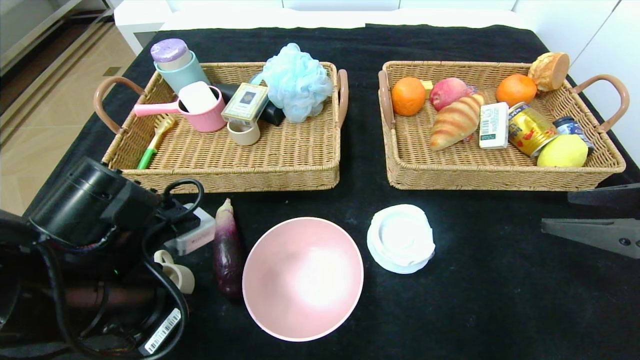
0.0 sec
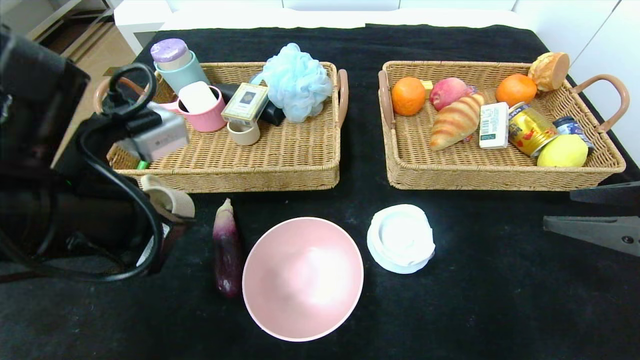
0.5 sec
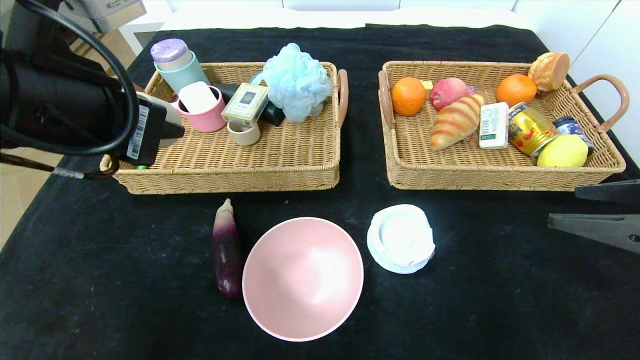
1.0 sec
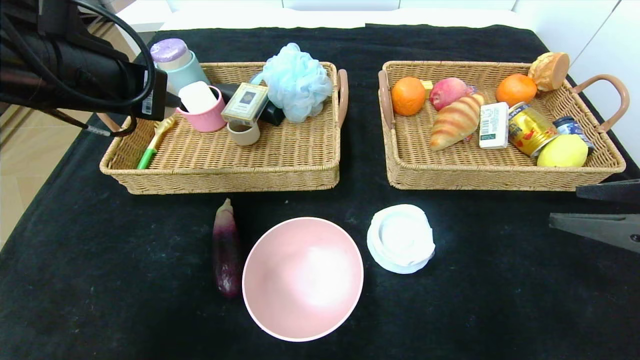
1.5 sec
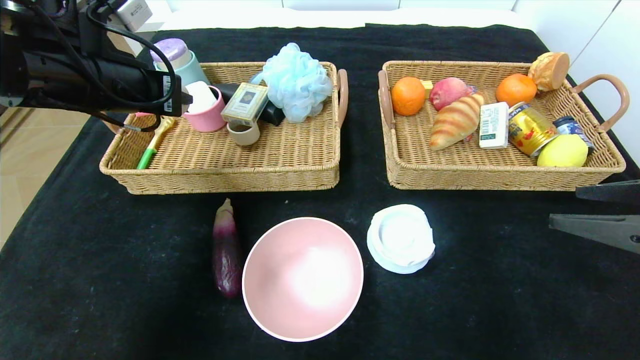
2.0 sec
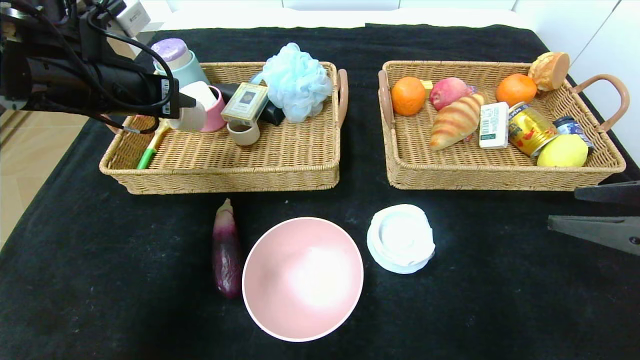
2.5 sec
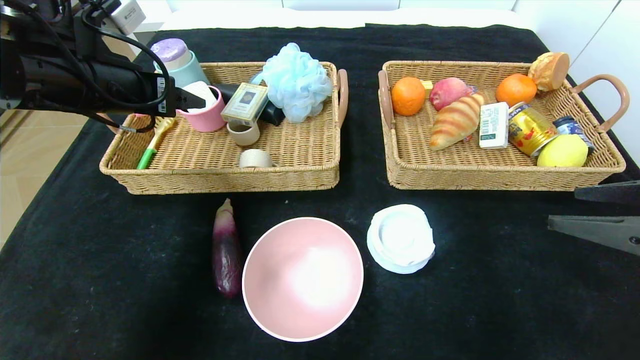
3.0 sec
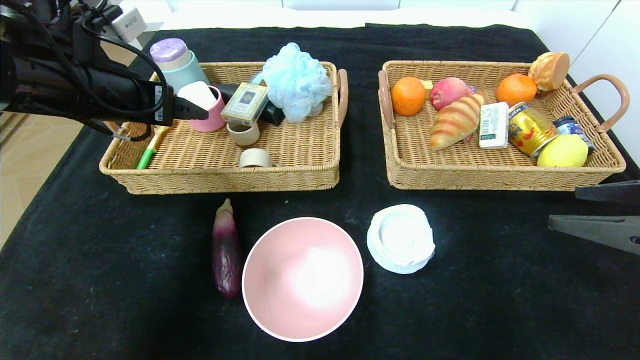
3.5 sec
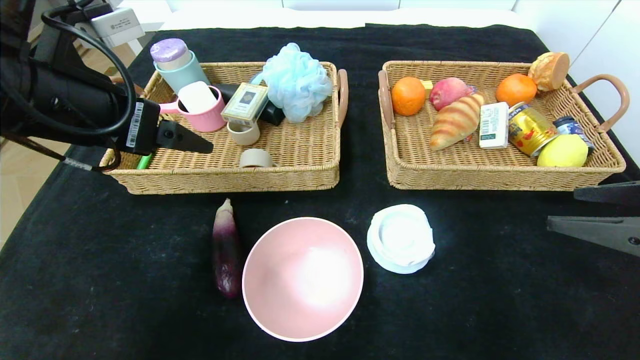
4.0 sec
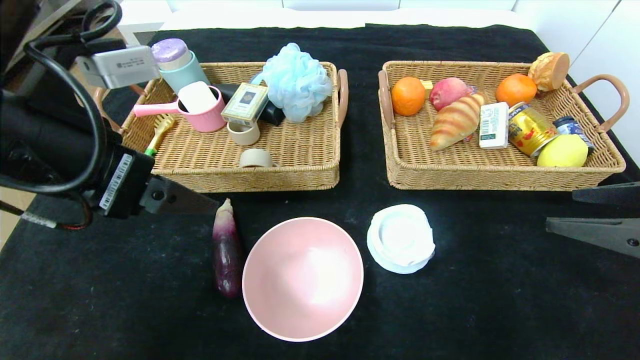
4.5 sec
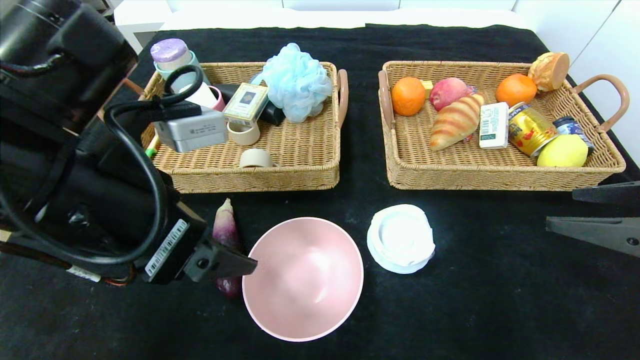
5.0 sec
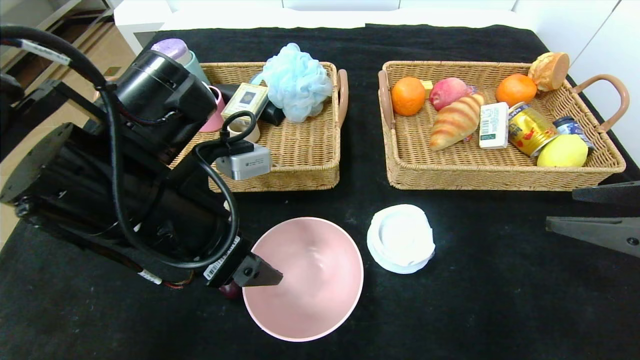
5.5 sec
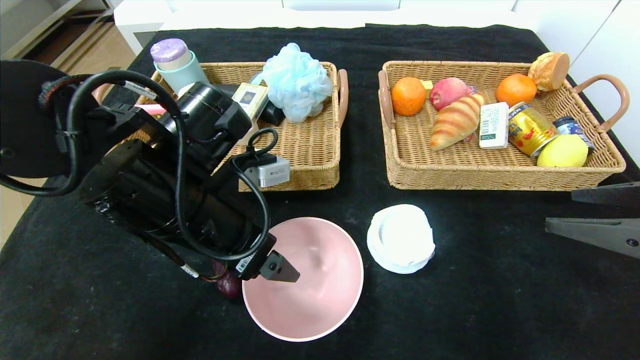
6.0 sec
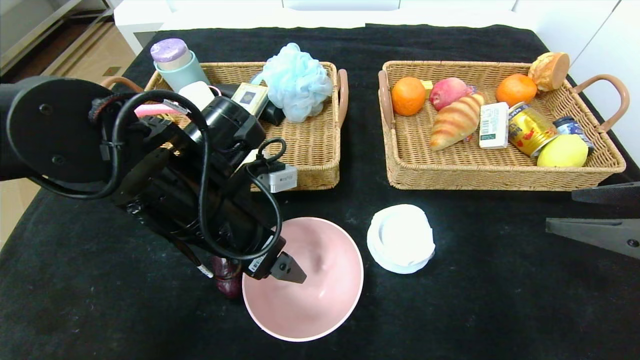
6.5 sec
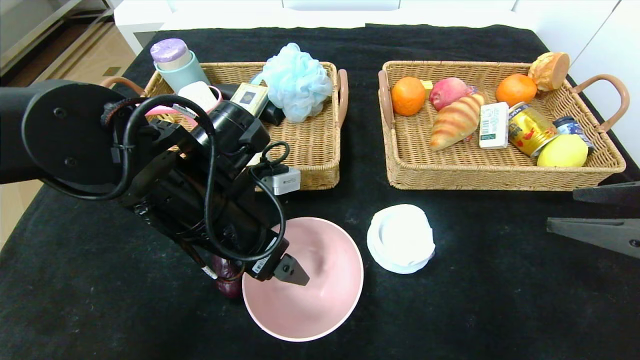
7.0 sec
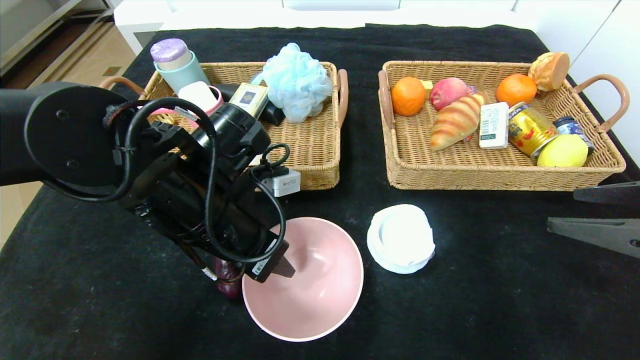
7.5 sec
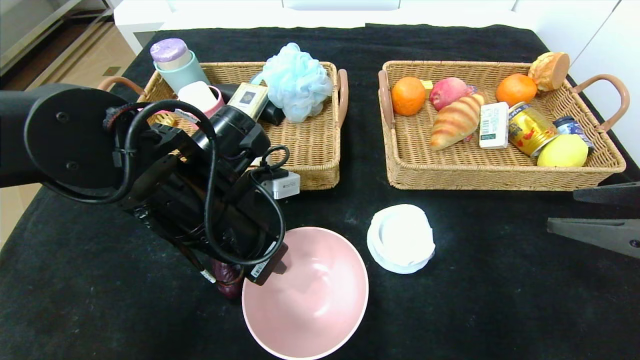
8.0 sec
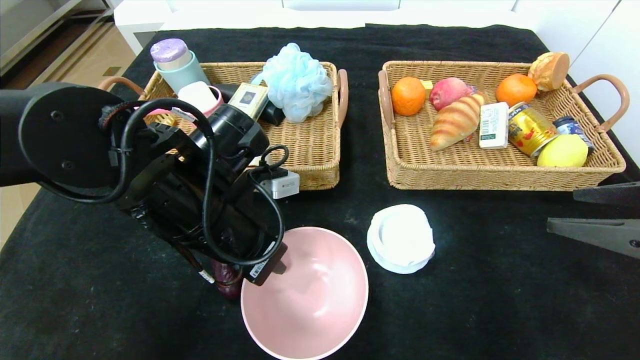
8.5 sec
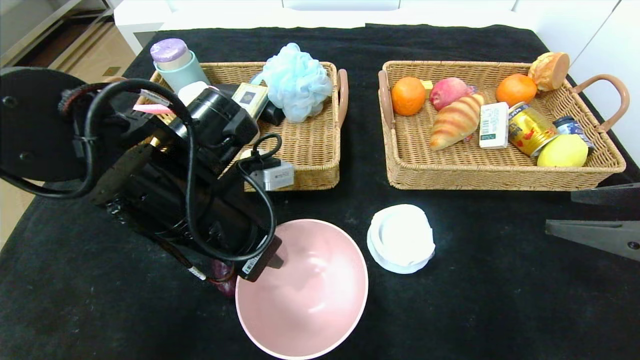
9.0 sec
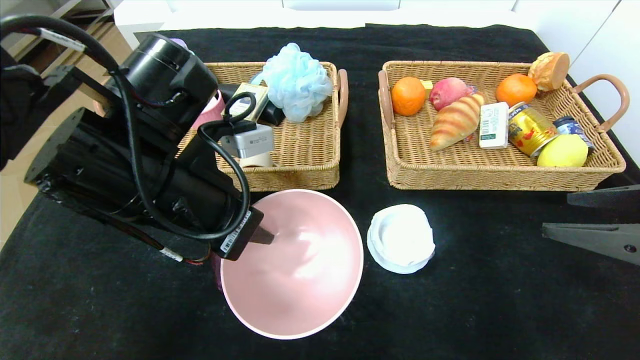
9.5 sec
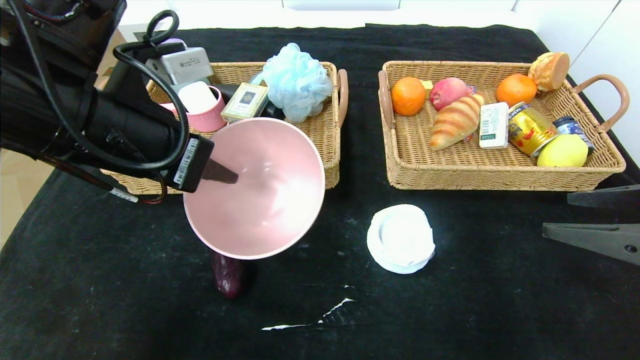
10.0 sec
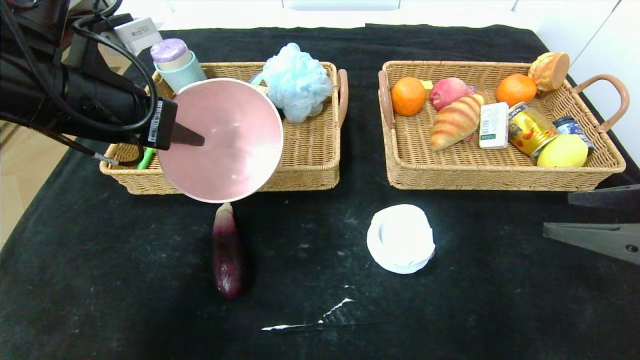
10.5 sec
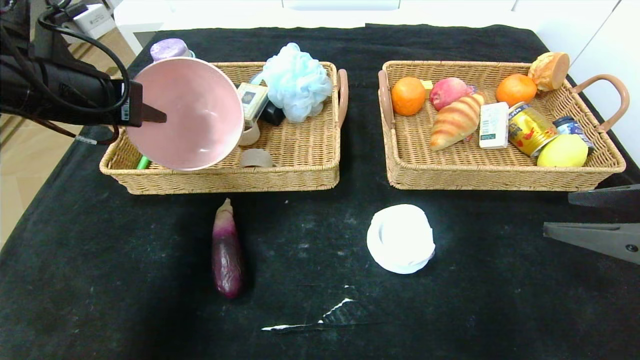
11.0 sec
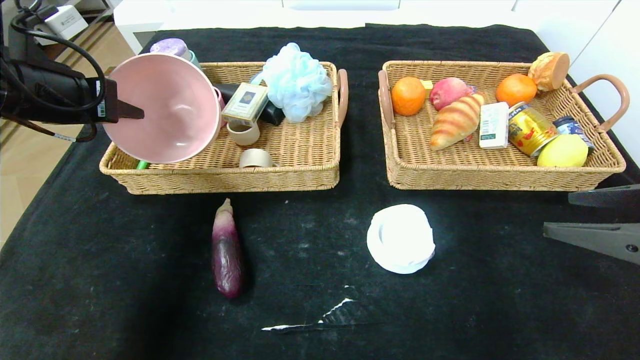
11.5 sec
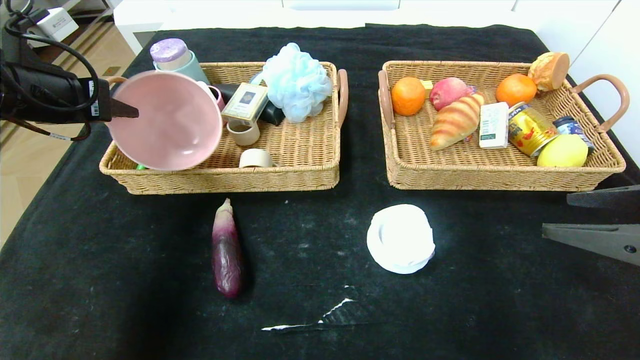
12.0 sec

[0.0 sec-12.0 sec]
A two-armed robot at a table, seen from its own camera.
Step, 0.0 sec to 4.5 sec: Pick up the tea cup and put it in the left basket.
0.0 sec to 2.0 sec: The left gripper heads forward, upward and to the left, covering about 20 cm.
2.0 sec to 4.0 sec: The left gripper is displaced backward by approximately 10 cm, and opens its fingers.
4.0 sec to 6.0 sec: The left gripper moves downward and to the right, about 15 cm.
6.0 sec to 8.0 sec: The left gripper closes its fingers.
8.0 sec to 10.0 sec: The left gripper travels upward and to the left by roughly 10 cm.
10.0 sec to 12.0 sec: The left gripper moves to the left and forward, approximately 15 cm.

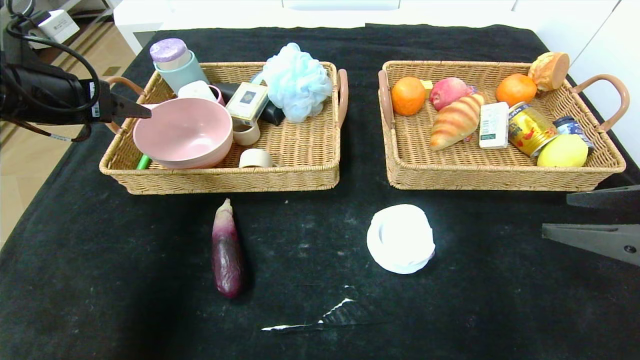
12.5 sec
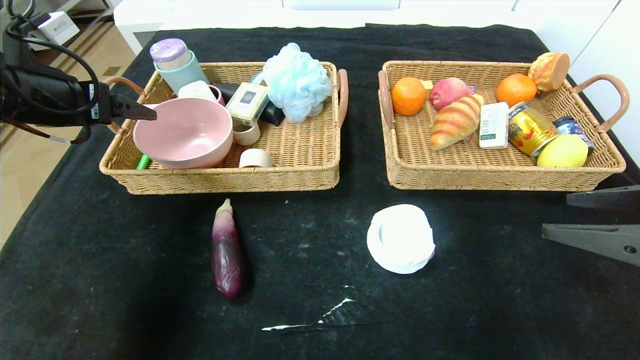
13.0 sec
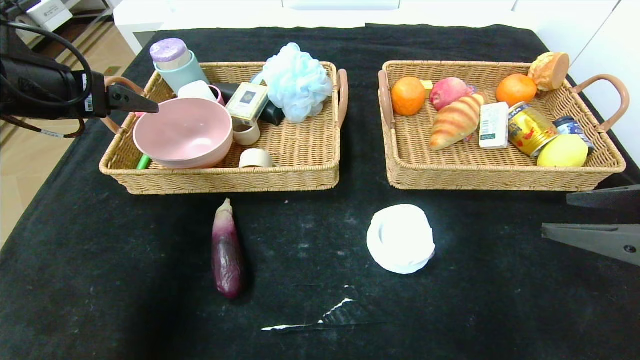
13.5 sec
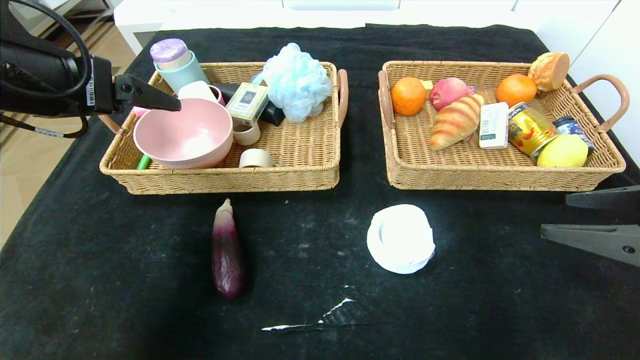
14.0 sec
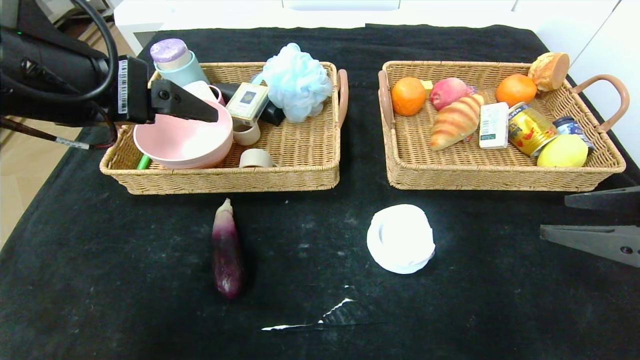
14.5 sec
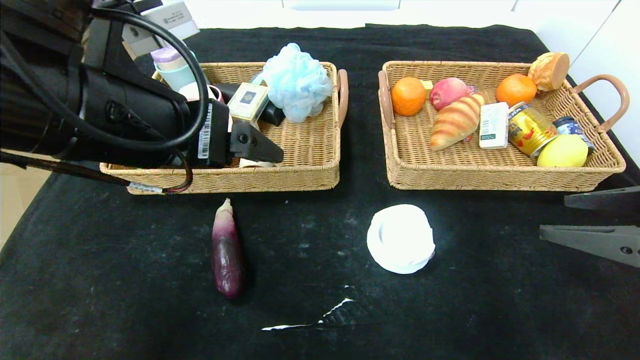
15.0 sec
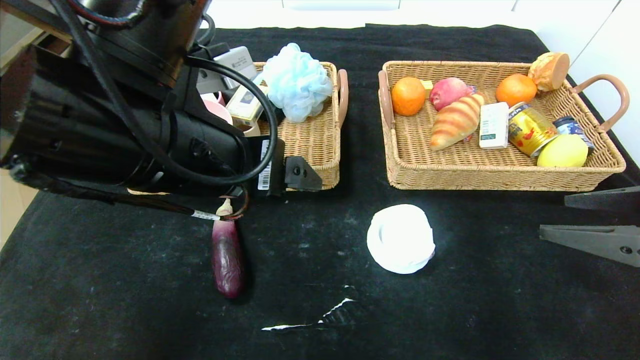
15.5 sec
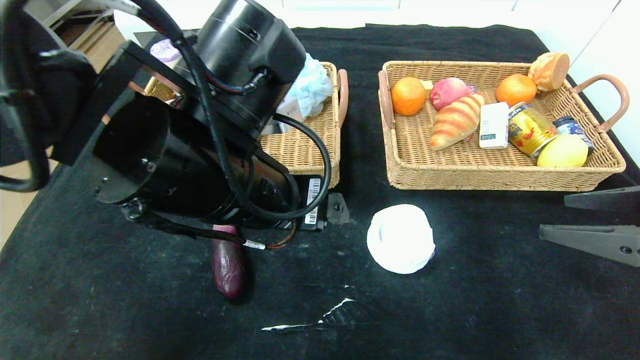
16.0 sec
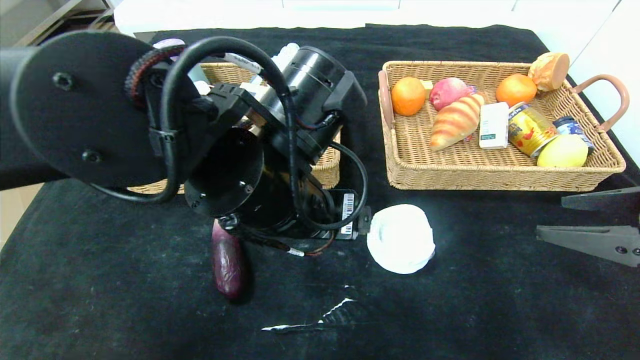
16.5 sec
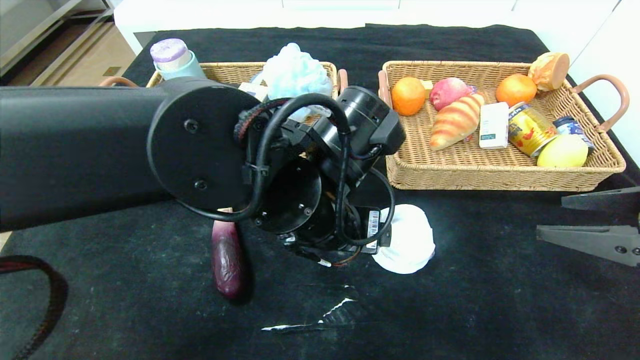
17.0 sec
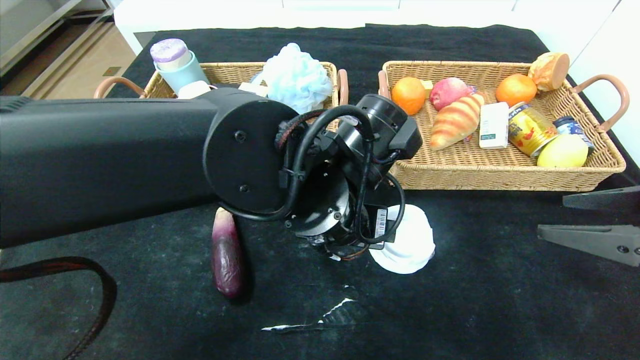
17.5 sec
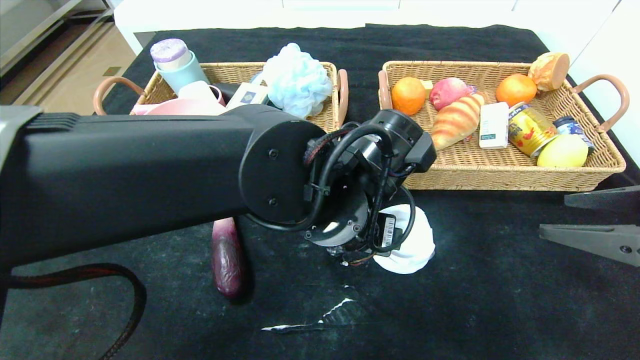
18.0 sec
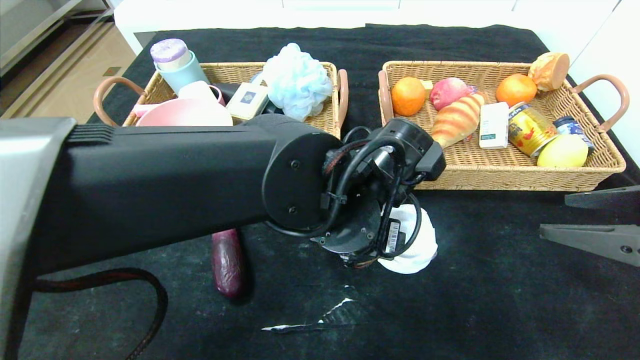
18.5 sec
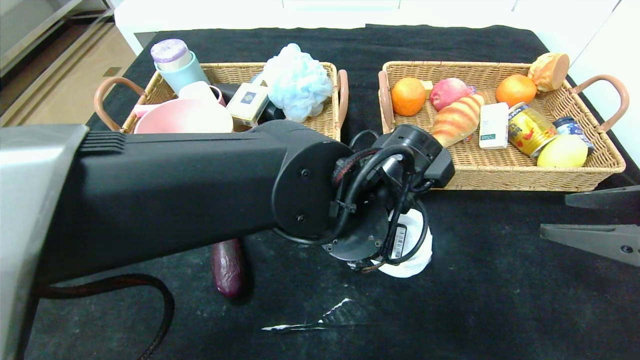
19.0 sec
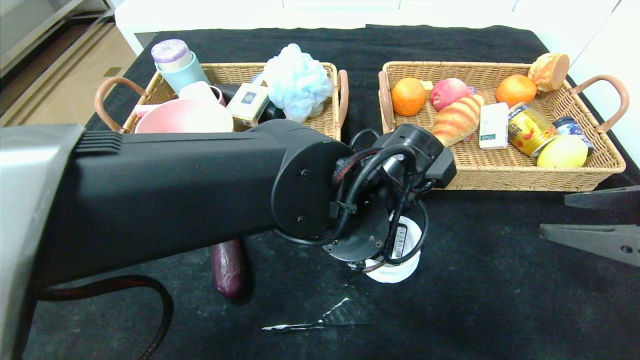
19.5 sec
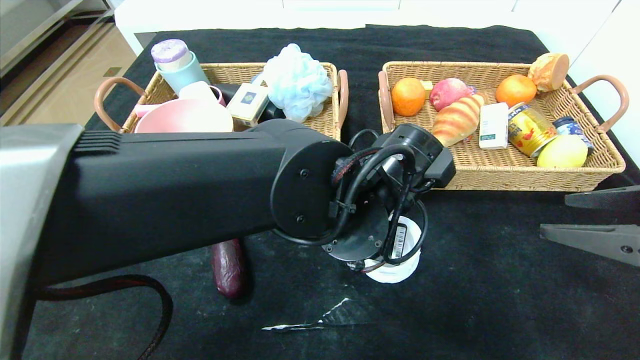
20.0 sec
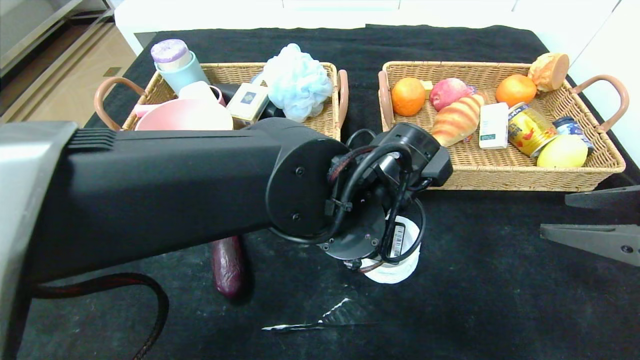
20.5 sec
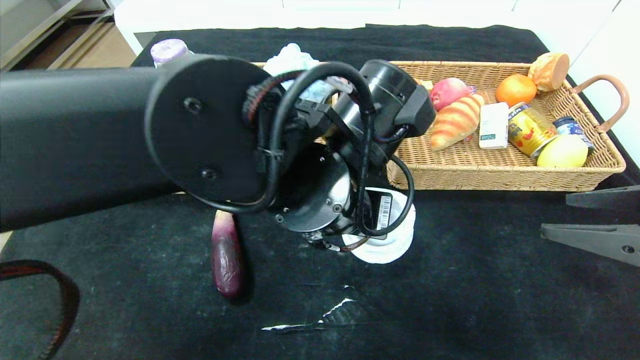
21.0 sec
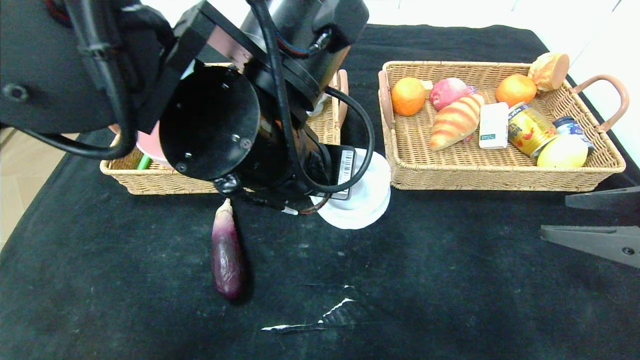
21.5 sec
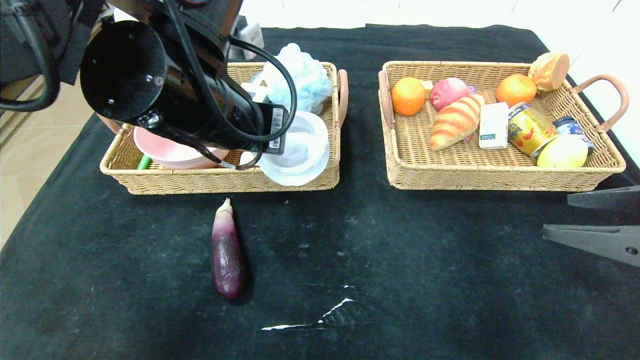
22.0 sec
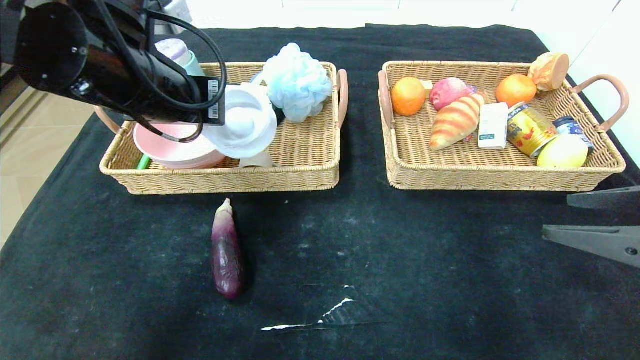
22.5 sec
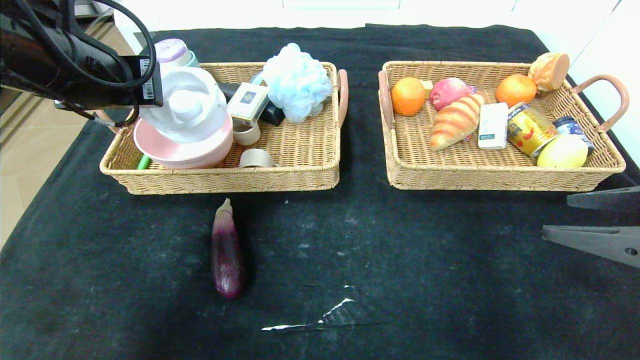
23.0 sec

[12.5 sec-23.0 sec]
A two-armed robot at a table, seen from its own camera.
Step, 12.5 sec to 15.5 sec: Pick up the pink bowl and put it in the left basket.
12.5 sec to 14.5 sec: The left gripper travels to the right and backward by some 15 cm.
14.5 sec to 16.5 sec: The left gripper is displaced to the right and downward by roughly 20 cm.
16.5 sec to 19.0 sec: The left gripper is displaced to the right and downward by approximately 10 cm, and closes.
19.0 sec to 21.0 sec: The left gripper is displaced upward by approximately 5 cm, and closes.
21.0 sec to 23.0 sec: The left gripper goes about 25 cm to the left and upward.
